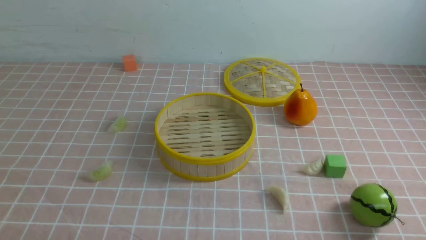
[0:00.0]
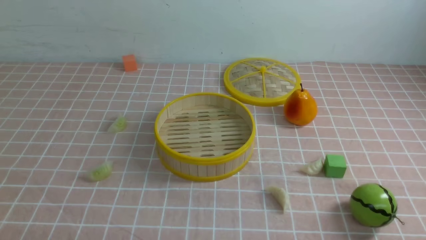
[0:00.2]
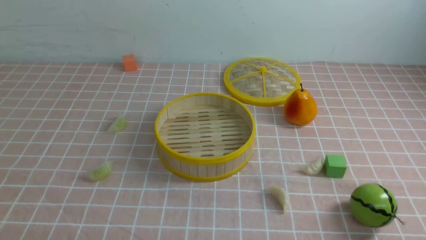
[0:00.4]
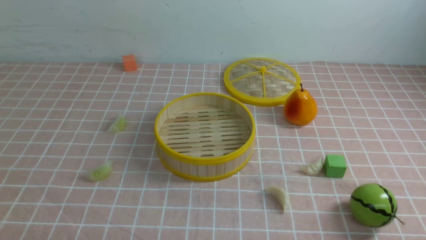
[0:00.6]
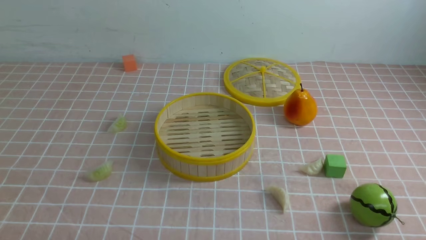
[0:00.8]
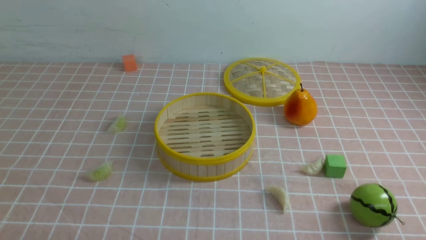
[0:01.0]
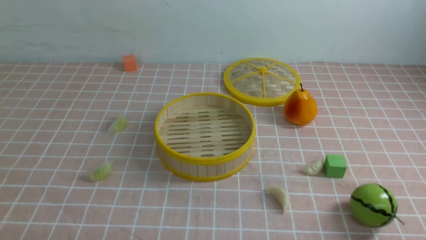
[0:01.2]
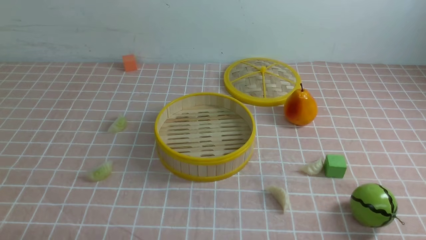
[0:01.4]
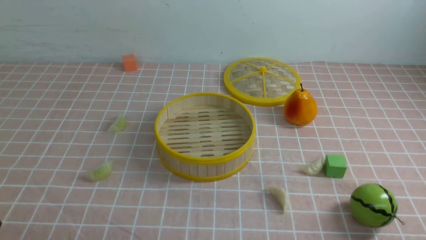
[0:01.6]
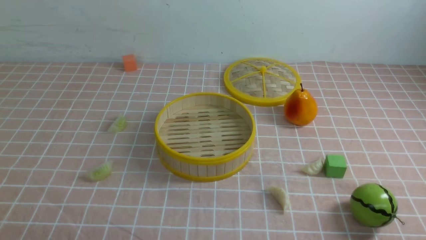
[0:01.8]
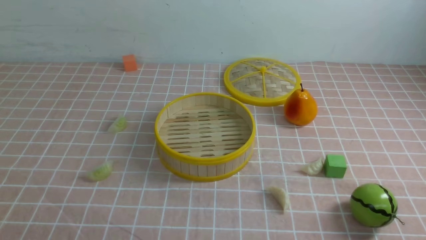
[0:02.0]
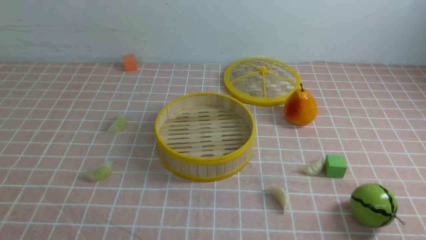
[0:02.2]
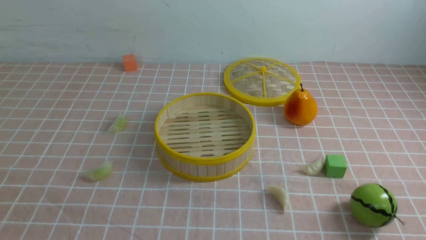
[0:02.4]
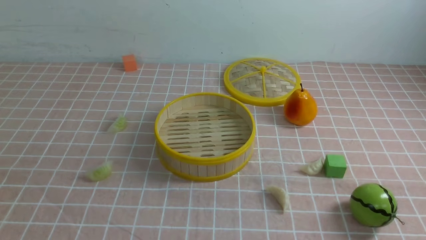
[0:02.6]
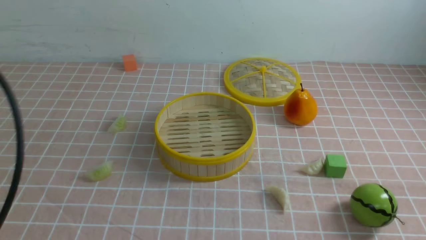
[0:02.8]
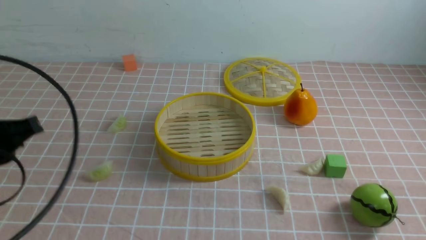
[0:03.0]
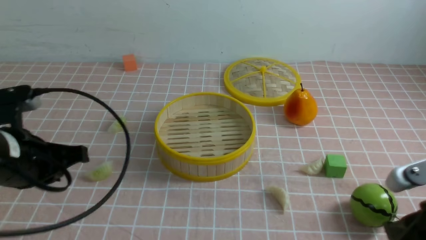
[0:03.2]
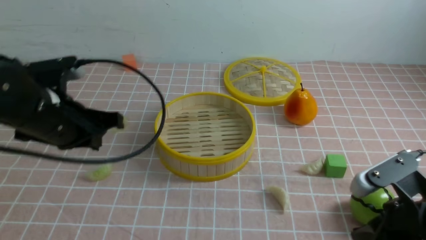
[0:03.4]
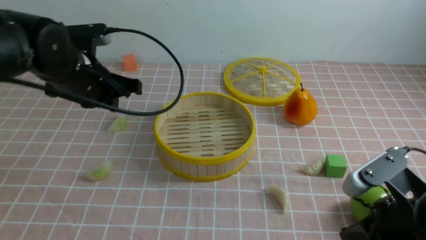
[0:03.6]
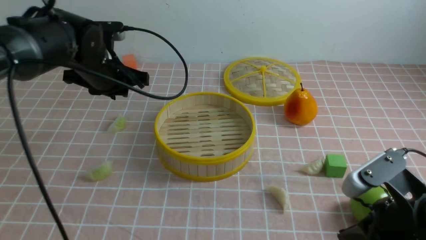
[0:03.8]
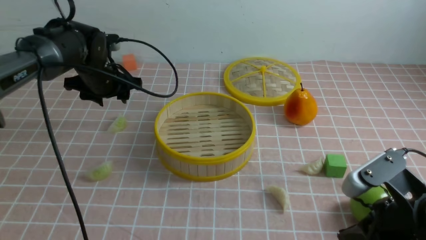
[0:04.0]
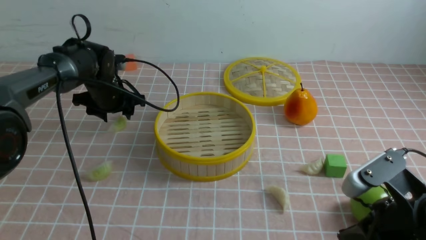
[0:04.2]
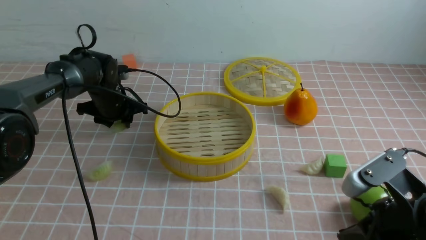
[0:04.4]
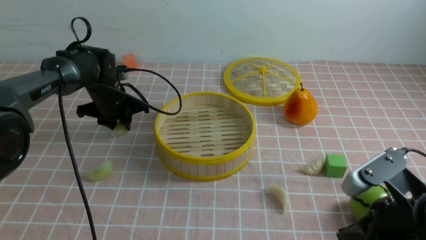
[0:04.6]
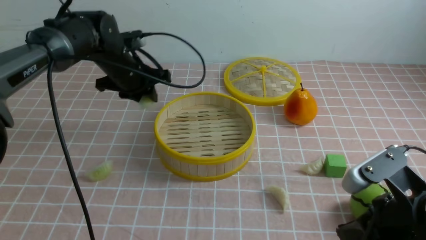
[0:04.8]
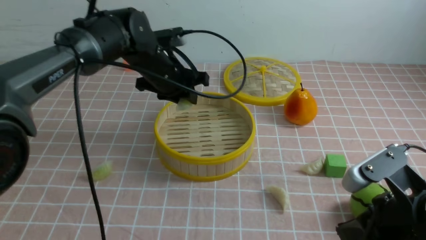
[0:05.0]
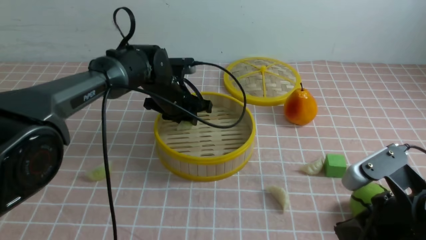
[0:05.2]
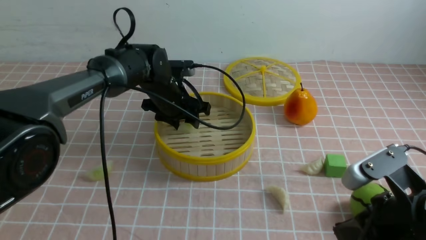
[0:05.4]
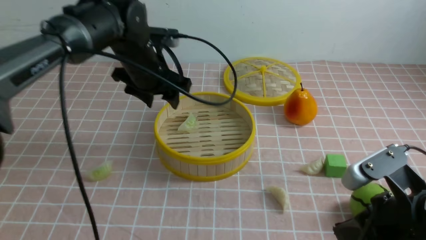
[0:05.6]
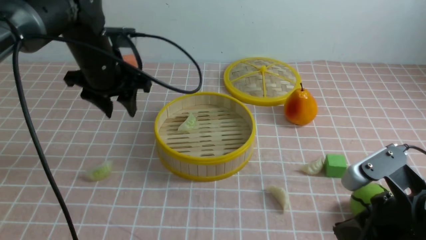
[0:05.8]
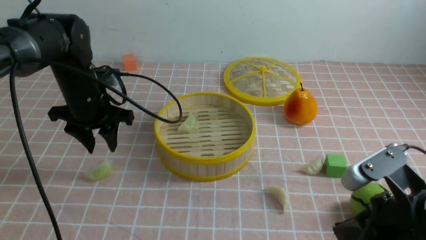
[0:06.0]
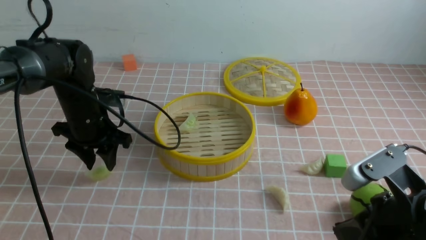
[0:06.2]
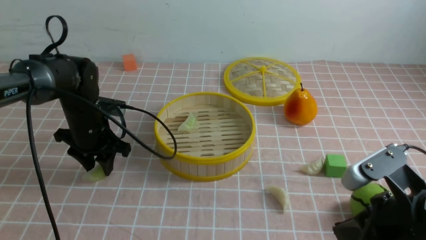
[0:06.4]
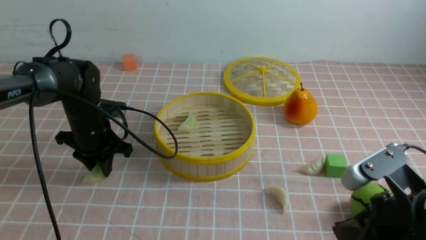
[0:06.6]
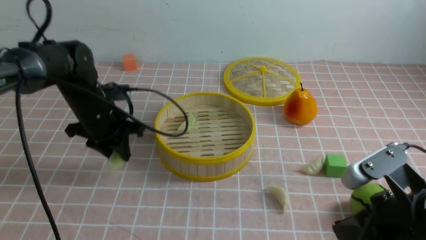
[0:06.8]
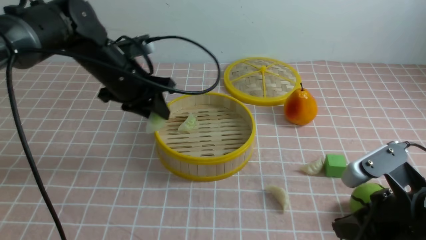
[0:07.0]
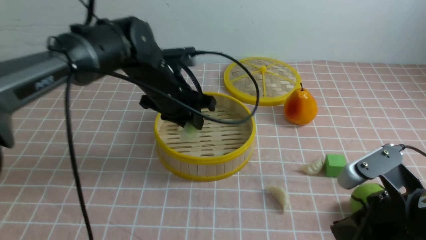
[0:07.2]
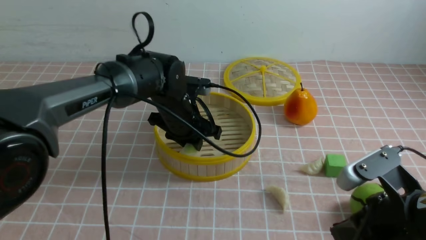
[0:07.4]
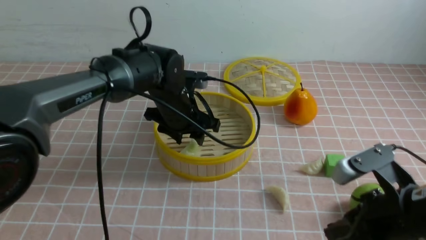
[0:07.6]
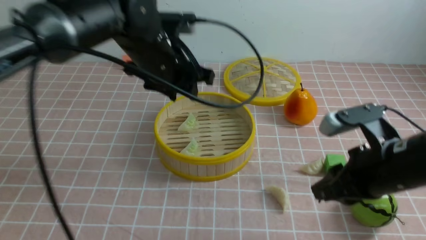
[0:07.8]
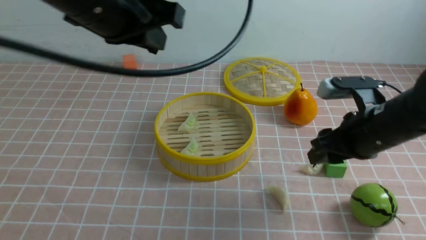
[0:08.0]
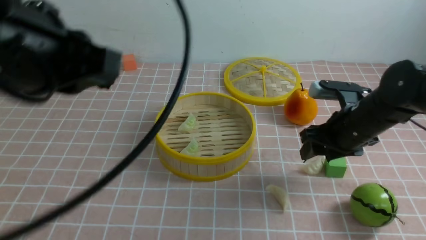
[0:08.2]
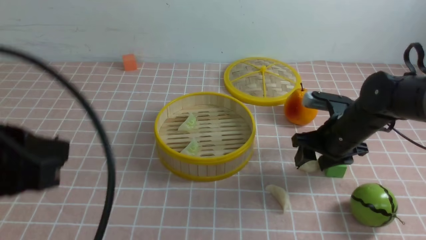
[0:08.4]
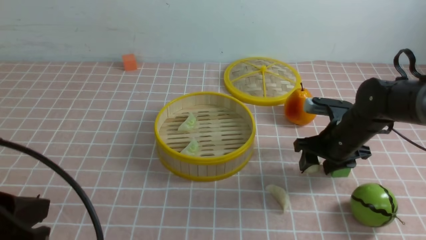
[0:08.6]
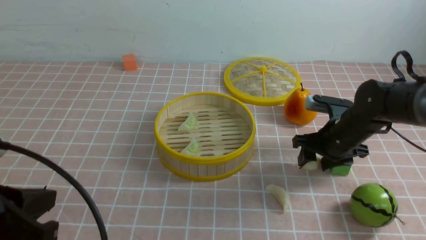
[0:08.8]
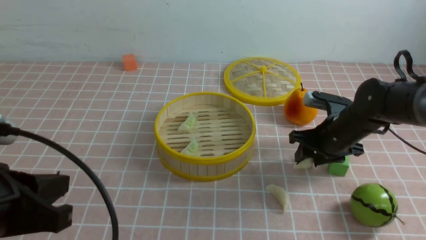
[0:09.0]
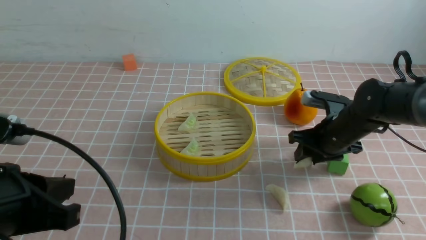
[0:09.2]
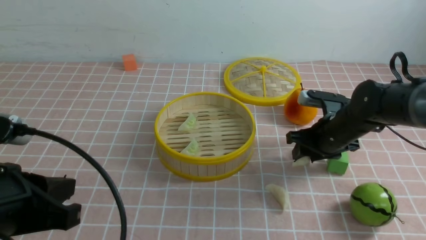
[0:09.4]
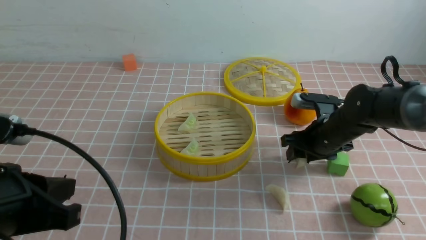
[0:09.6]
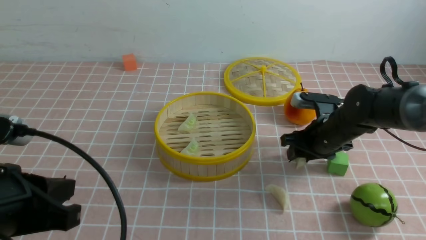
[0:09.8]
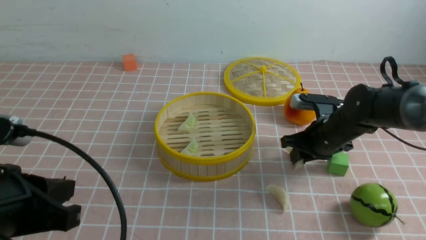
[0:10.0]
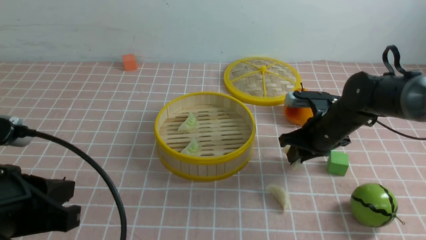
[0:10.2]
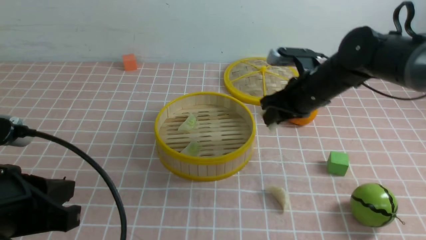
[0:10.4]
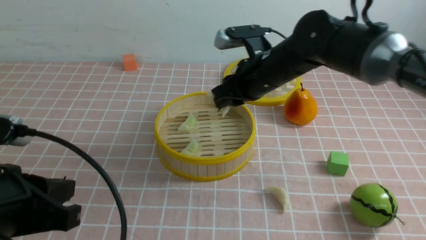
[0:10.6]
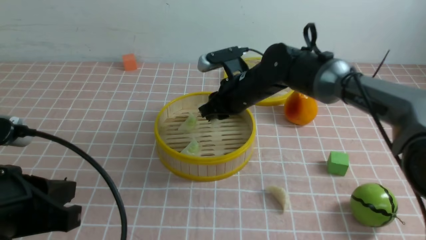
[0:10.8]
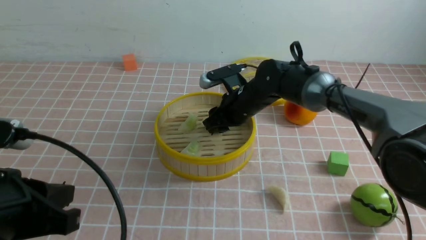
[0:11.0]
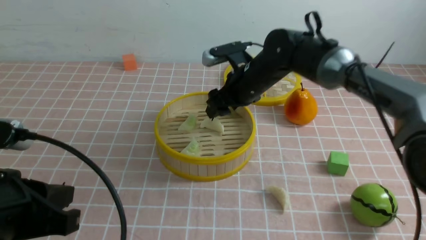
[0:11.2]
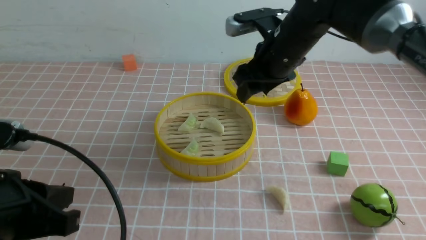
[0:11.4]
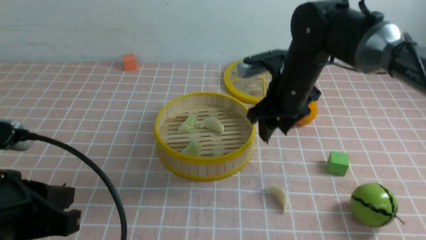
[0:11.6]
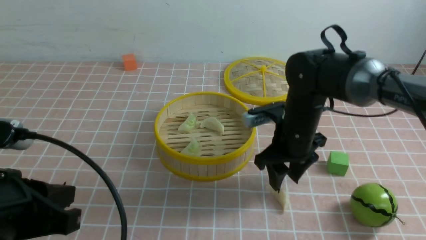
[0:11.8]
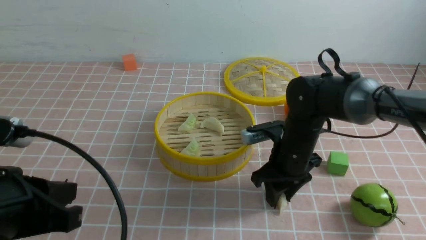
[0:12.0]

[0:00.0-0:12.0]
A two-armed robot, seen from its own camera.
Task of the whole recording: put the dumplings into the steamer on the table with the pink tablecloth.
Step, 0:00.0 to 0:04.6: use the left arm to grab a dumpling.
Step, 0:04.8 to 0:05.6: use the left arm to put the dumpling into the steamer.
Step, 0:05.8 to 0:06.6: use the left arm to grab a dumpling.
Step, 0:06.8 to 0:07.6: use the left arm to put the dumpling into the steamer.
Step, 0:07.8 to 0:10.2: use the right arm to grab a dumpling.
Step, 0:10.4 to 0:11.2: use the right arm to put the dumpling into the steamer.
0:01.6 to 0:03.0: The left gripper heads forward and upward, covering roughly 20 cm, and closes up.
0:03.0 to 0:04.4: The right gripper travels to the left by approximately 5 cm. The left gripper moves forward and downward, roughly 35 cm, and opens up.
0:04.4 to 0:06.0: The left gripper shifts approximately 10 cm backward and upward, and travels to the right and back again, roughly 10 cm each way.
0:06.0 to 0:07.6: The left gripper heads to the right, covering some 15 cm.
0:07.6 to 0:09.0: The left gripper heads backward and to the left, covering some 30 cm, and closes its fingers. Meanwhile the right gripper moves forward, approximately 20 cm, and opens.
0:09.0 to 0:10.4: The right gripper heads to the left and upward, covering some 10 cm, and closes its fingers.
0:10.4 to 0:12.0: The right gripper heads downward, covering some 5 cm, and opens, then closes again.

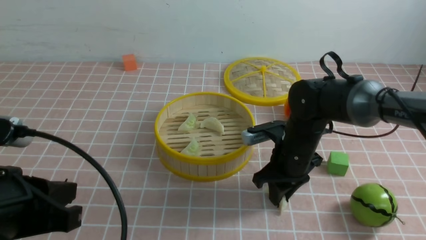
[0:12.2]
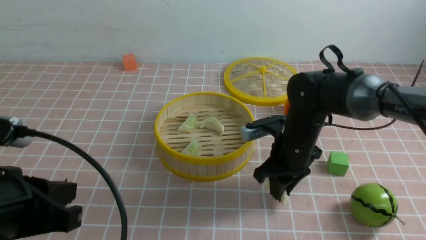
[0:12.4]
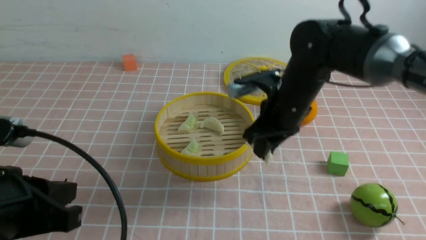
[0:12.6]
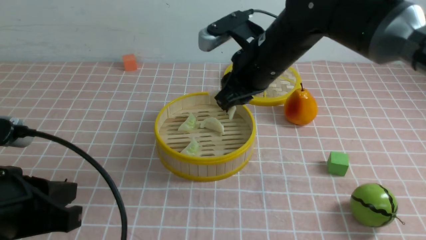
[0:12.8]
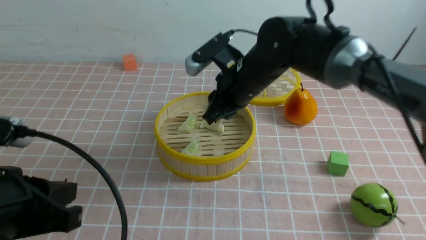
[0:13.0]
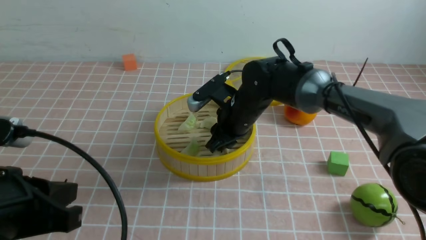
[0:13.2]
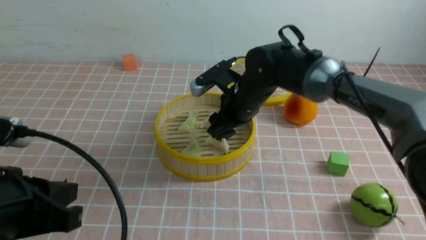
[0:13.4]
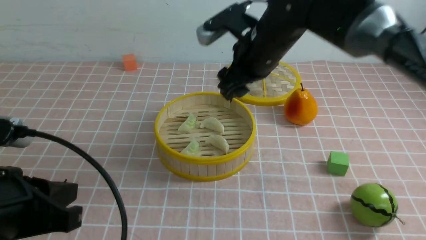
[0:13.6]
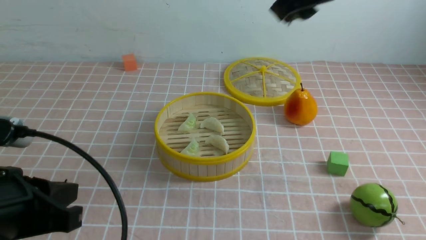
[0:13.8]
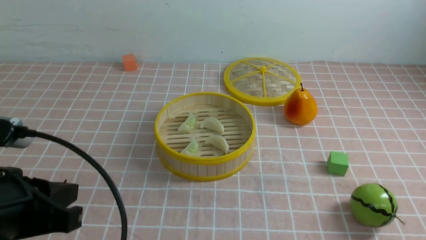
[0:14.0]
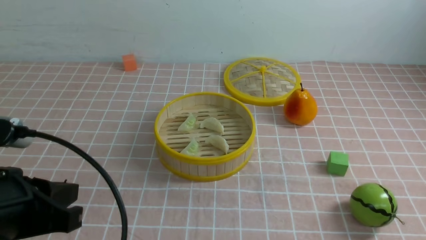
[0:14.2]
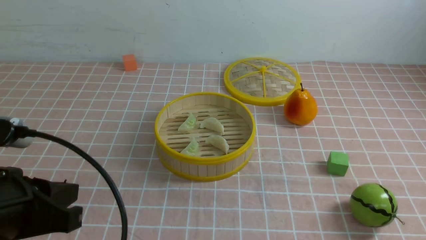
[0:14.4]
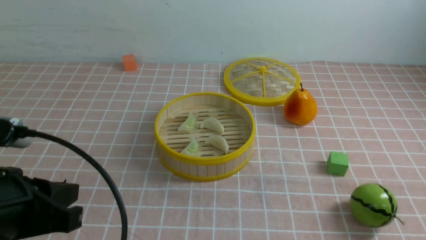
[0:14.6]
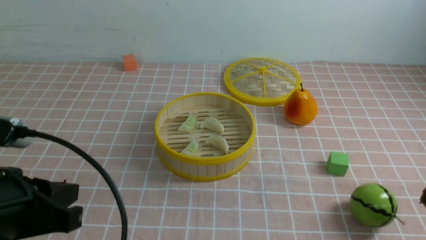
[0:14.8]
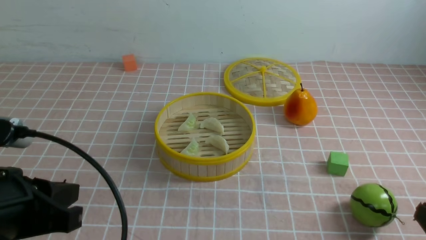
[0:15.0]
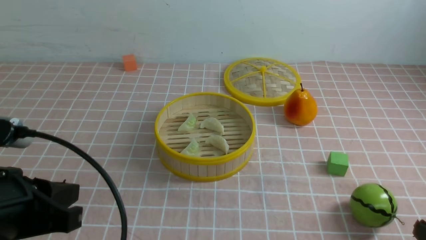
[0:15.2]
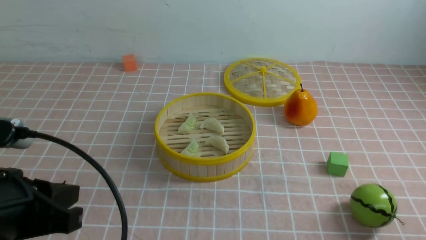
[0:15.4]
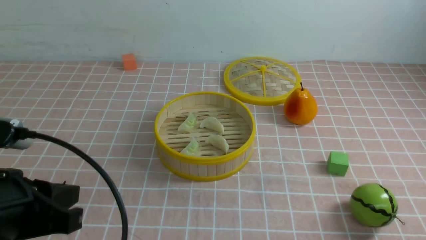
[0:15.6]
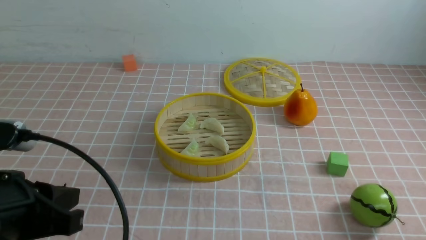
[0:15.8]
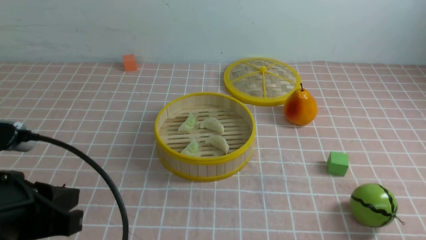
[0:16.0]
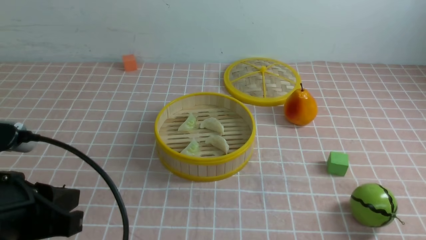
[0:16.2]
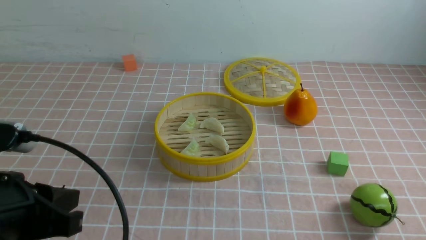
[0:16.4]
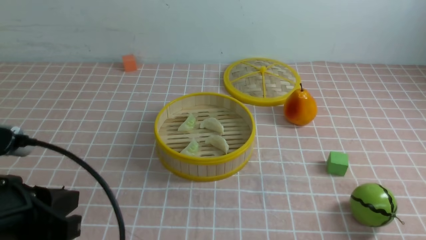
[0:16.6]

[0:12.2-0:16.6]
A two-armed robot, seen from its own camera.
Task of the whole recording: put the dumplings into the steamer on the table with the pink tablecloth.
Step, 0:12.6 to 0:13.4: use the right arm to put the dumpling into the steamer.
0:12.2 to 0:13.6: The right gripper moves up and down over about 20 cm, changing direction 2 times, and opens up.
0:13.6 to 0:15.2: The right gripper heads backward, to the right and downward, covering about 40 cm, and closes up.
0:15.2 to 0:16.6: The grippers stay close to where they were, moving slightly.
